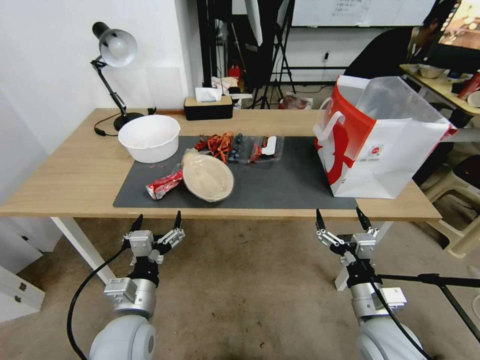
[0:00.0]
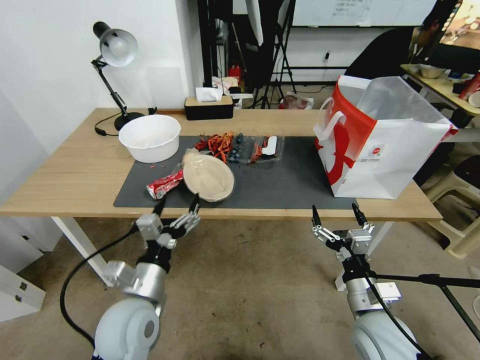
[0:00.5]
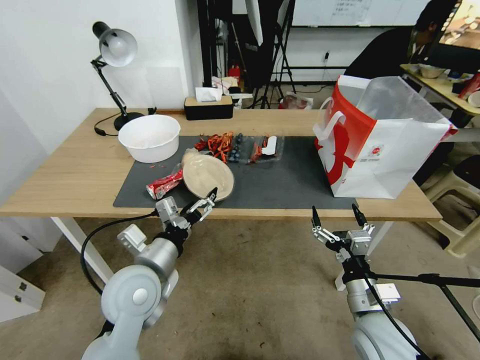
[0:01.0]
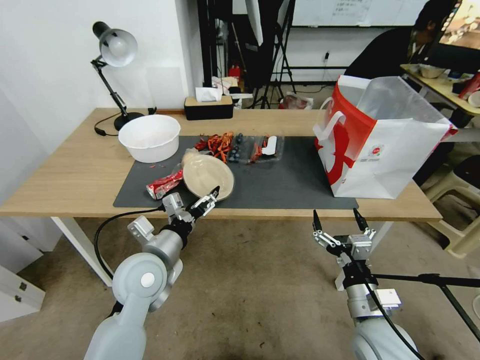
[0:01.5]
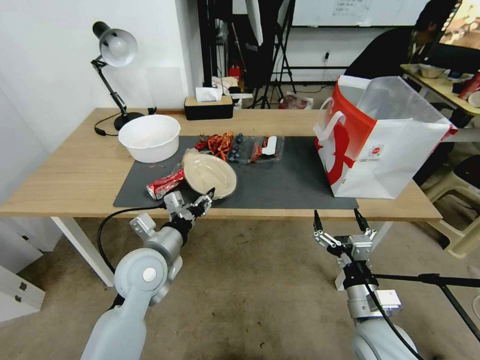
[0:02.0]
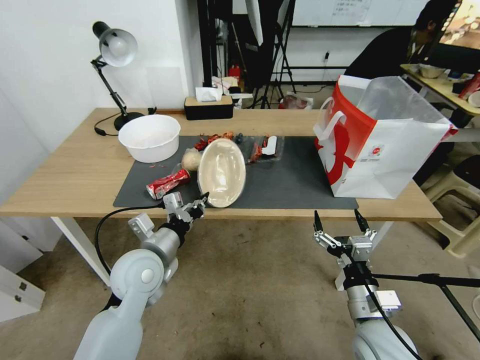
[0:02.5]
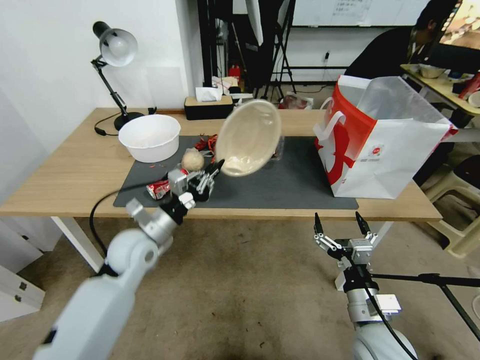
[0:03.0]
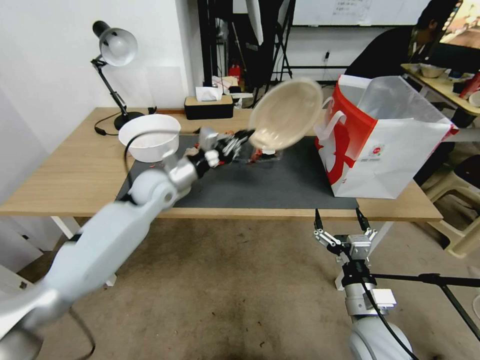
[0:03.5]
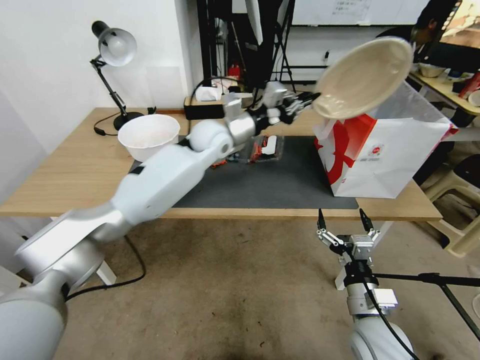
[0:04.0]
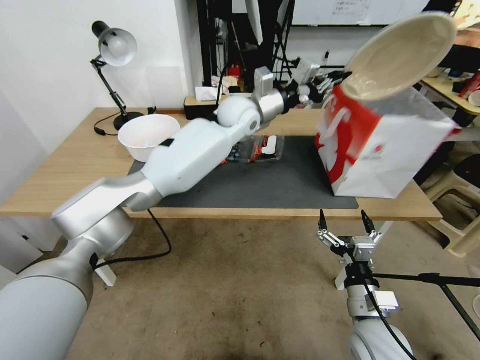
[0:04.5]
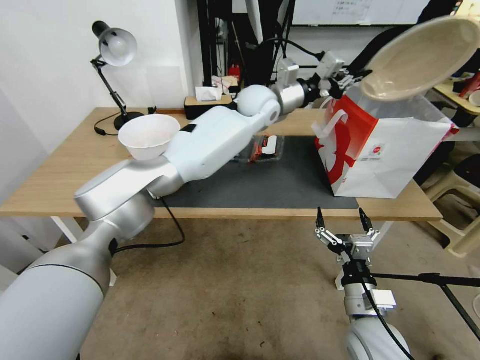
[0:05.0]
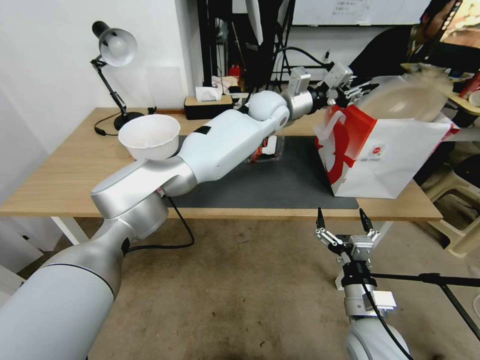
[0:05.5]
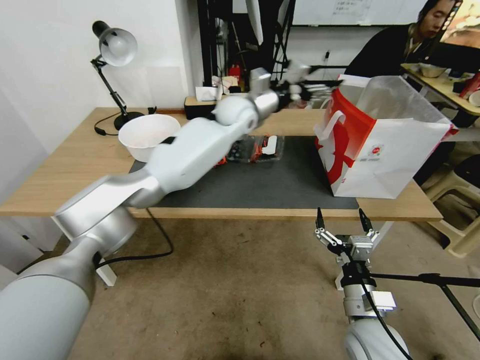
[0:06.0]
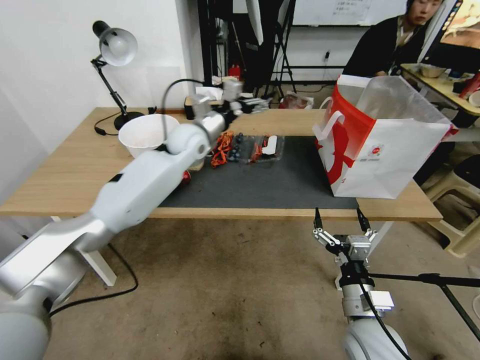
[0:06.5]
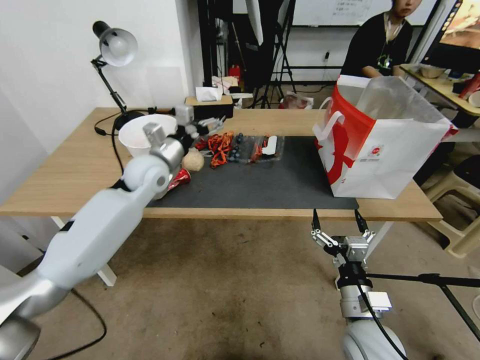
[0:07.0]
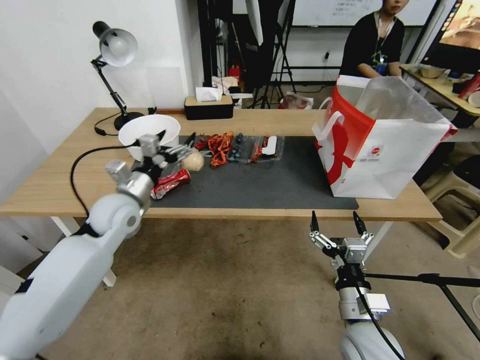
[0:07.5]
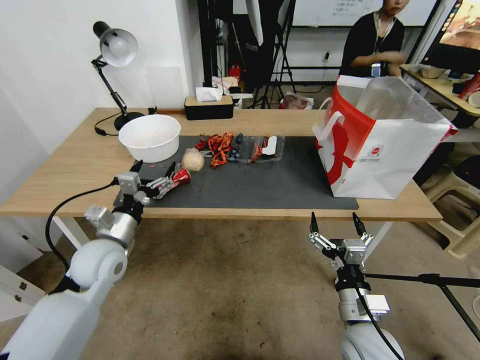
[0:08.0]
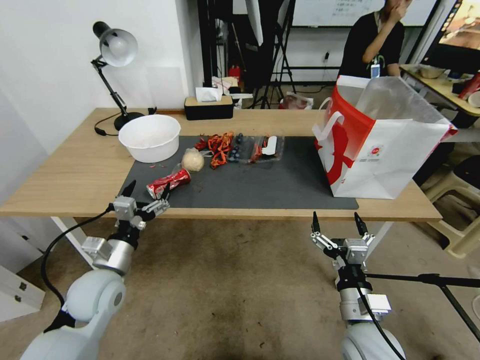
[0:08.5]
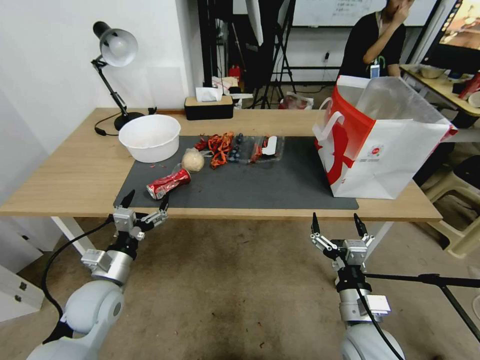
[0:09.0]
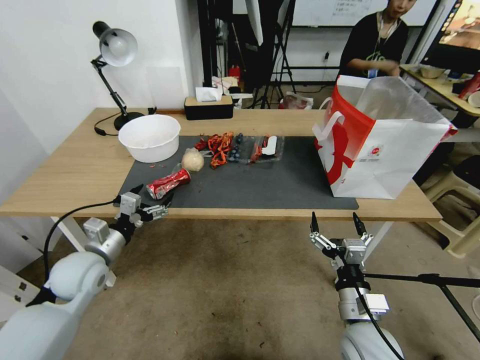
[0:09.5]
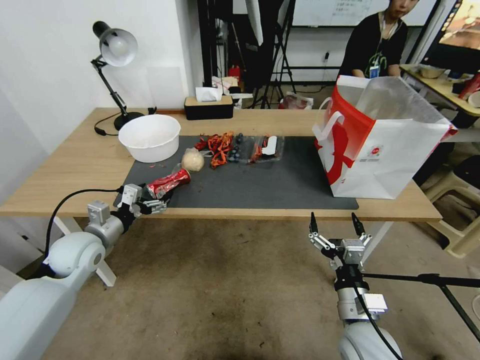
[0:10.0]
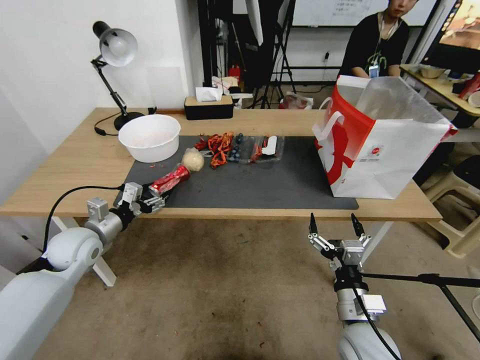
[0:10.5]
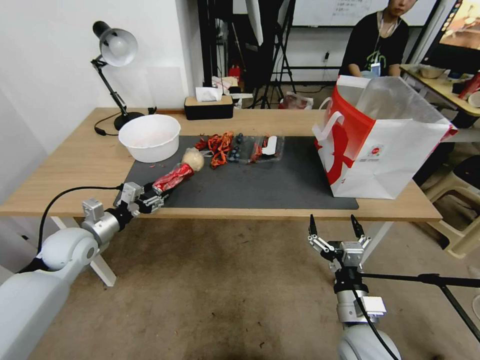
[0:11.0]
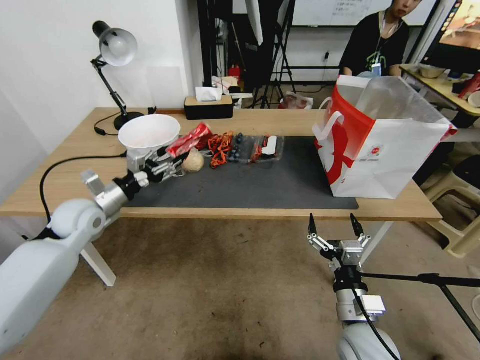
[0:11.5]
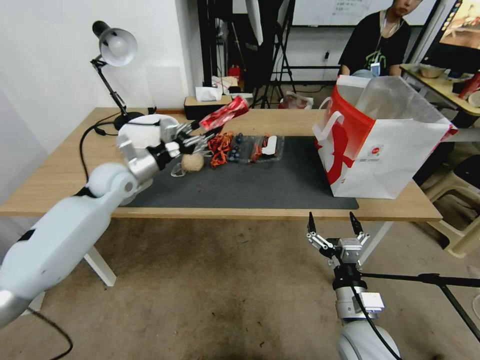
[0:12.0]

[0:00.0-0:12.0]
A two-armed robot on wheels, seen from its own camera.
0:00.0 to 0:02.0: The left gripper heads forward and upward, covering approximately 10 cm, and closes its fingers.
0:02.0 to 0:04.0: The left gripper goes approximately 30 cm forward, upward and to the right, and closes up.
0:04.0 to 0:06.0: The left gripper goes some 10 cm to the right and forward, and opens.
0:06.0 to 0:08.0: The left gripper moves to the left, backward and downward, roughly 40 cm.
0:08.0 to 0:10.0: The left gripper travels to the left by about 5 cm, and goes backward and returns, approximately 5 cm each way.
0:10.0 to 0:12.0: The left gripper heads forward, upward and to the right, covering about 15 cm, and closes.

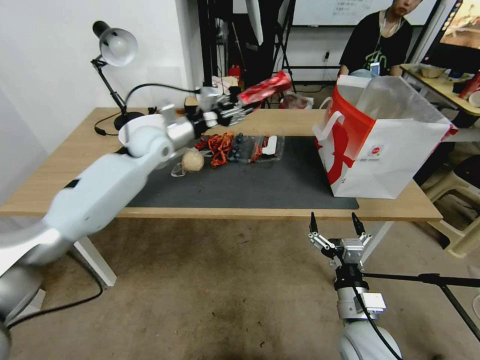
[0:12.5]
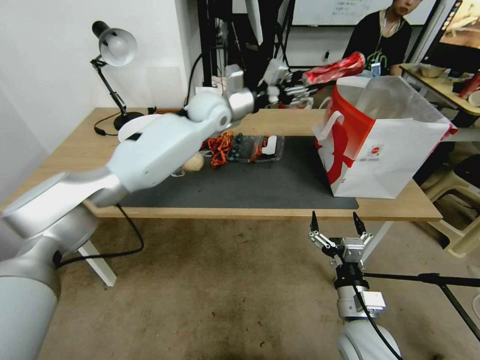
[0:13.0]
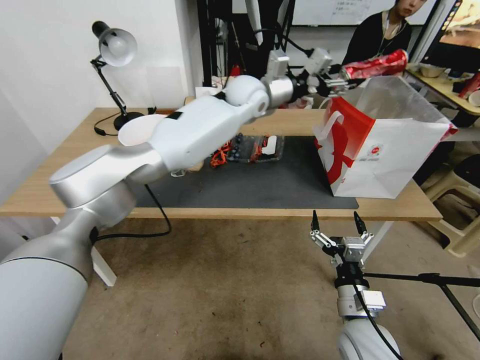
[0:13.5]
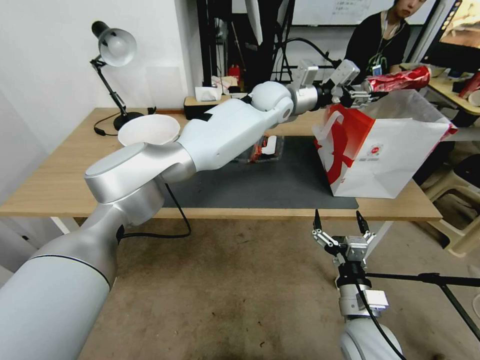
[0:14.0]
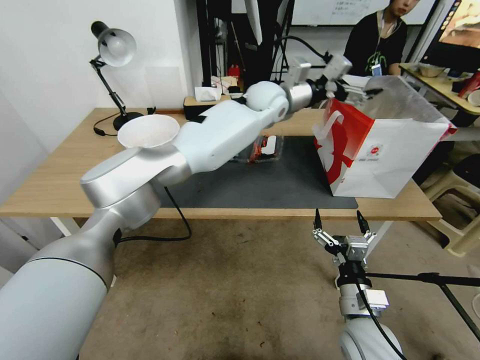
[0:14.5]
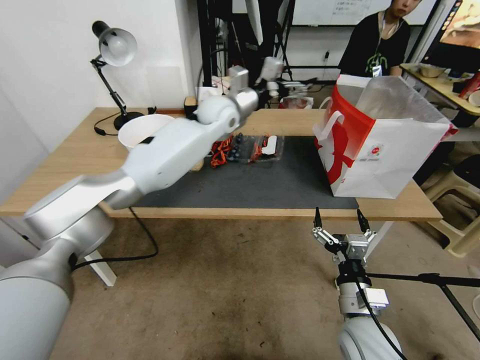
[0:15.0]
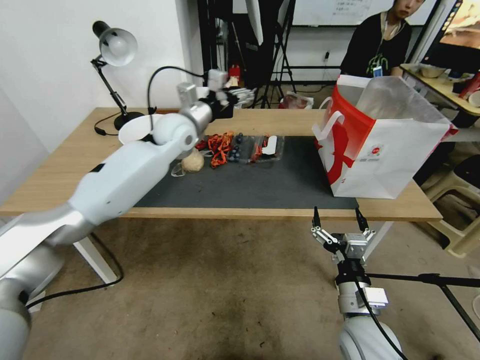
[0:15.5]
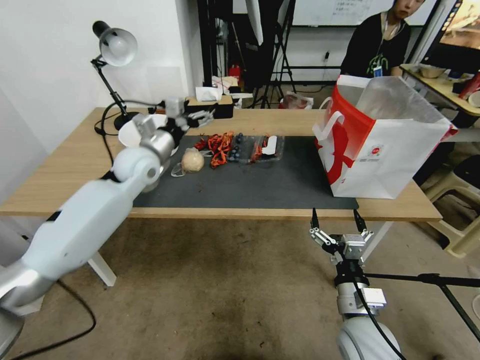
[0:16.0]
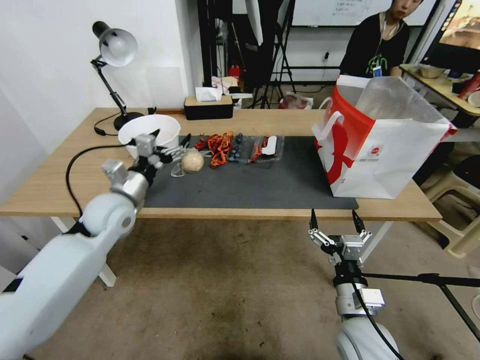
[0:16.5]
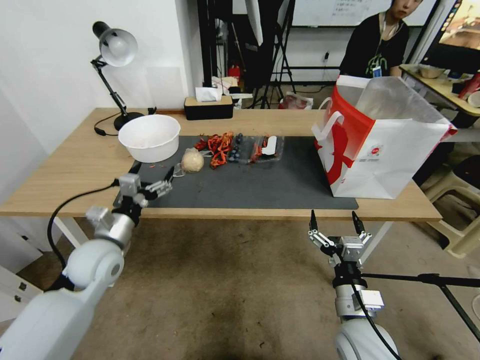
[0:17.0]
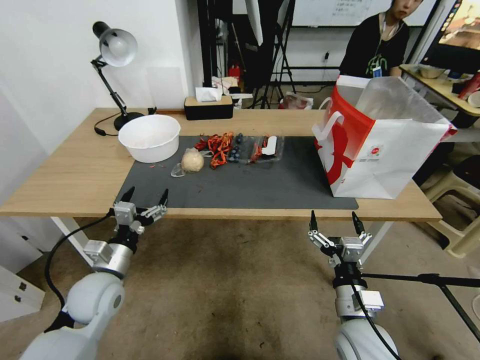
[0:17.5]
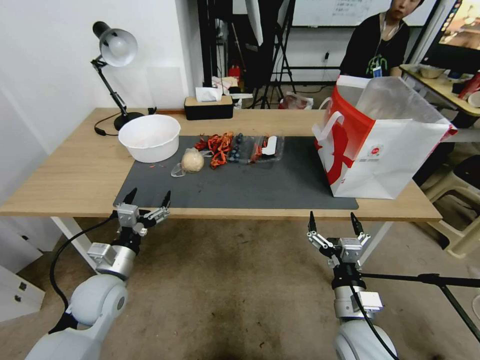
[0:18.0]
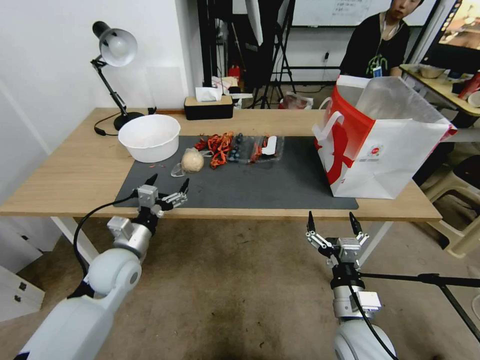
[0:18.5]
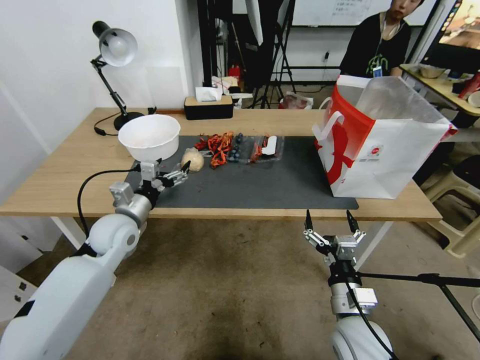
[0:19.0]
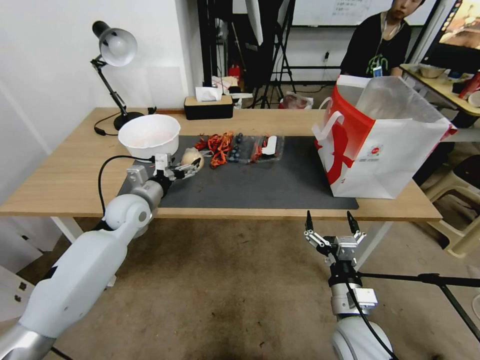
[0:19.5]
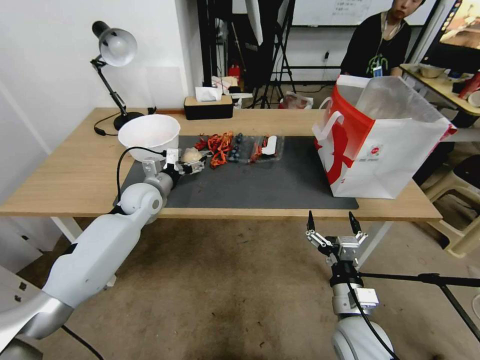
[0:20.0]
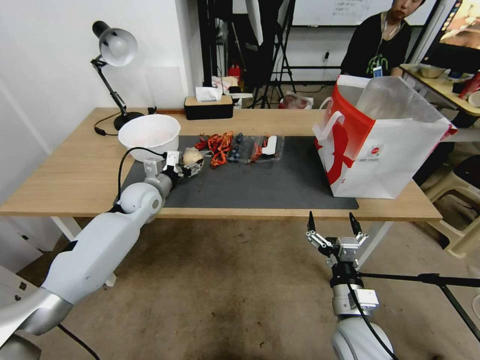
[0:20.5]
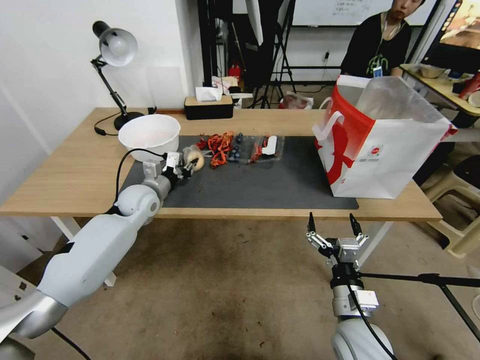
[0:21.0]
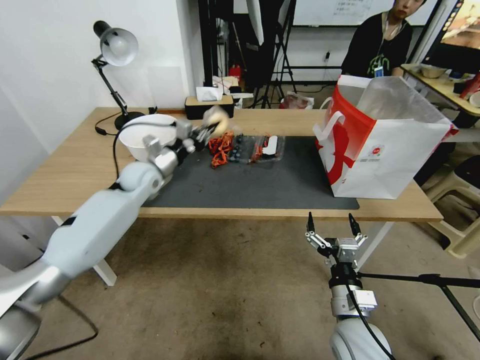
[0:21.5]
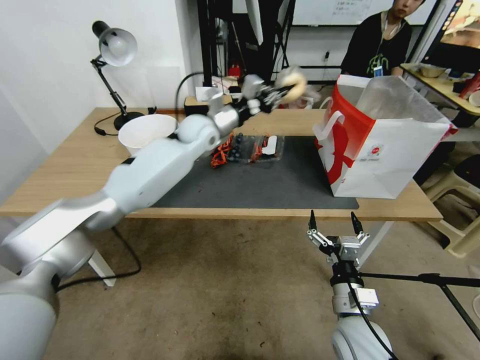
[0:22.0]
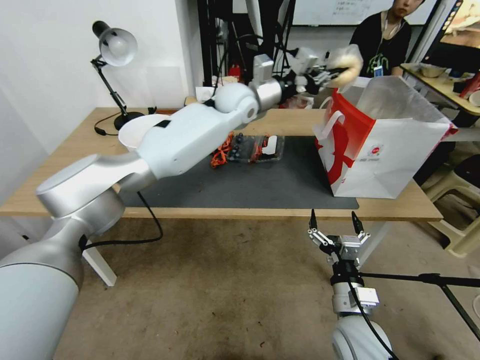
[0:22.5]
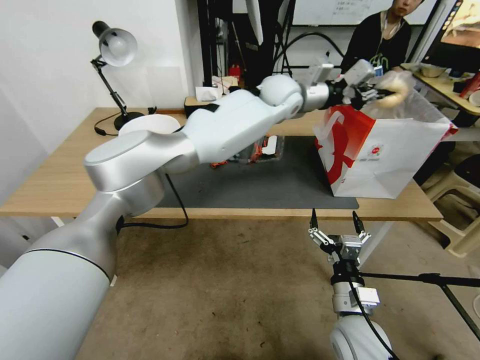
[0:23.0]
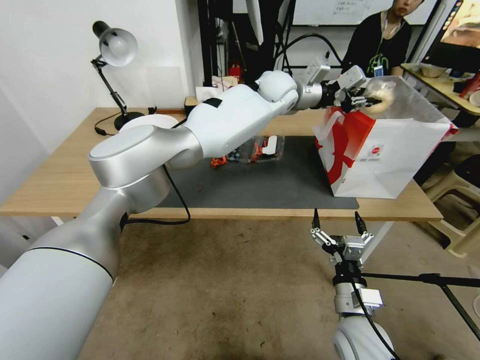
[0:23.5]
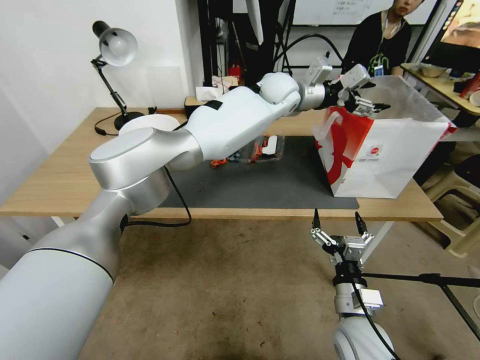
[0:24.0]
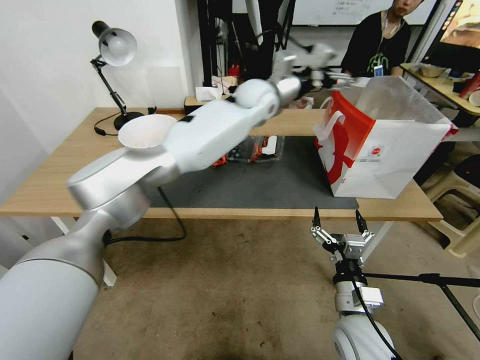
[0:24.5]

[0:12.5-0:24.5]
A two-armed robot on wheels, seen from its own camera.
0:12.5 to 0:14.5: The left gripper heads to the right, covering roughly 25 cm, and opens up.
0:14.5 to 0:16.5: The left gripper shifts about 40 cm to the left, backward and downward.
0:16.5 to 0:18.5: The left gripper heads backward and downward, covering approximately 15 cm.
0:18.5 to 0:20.5: The left gripper moves forward, some 15 cm.
0:20.5 to 0:22.5: The left gripper moves to the right, upward and forward, roughly 35 cm, and closes up.
0:22.5 to 0:24.5: The left gripper shifts approximately 5 cm to the right, and opens.

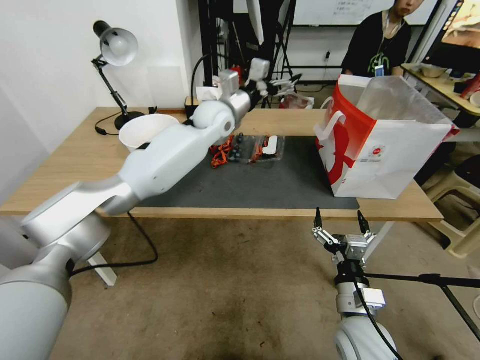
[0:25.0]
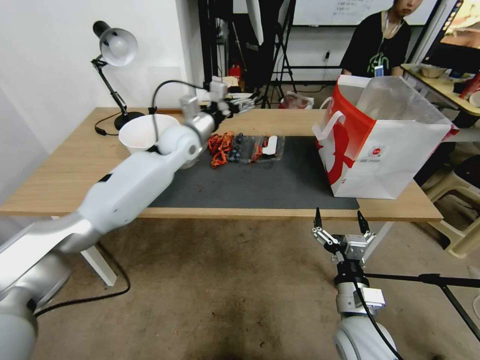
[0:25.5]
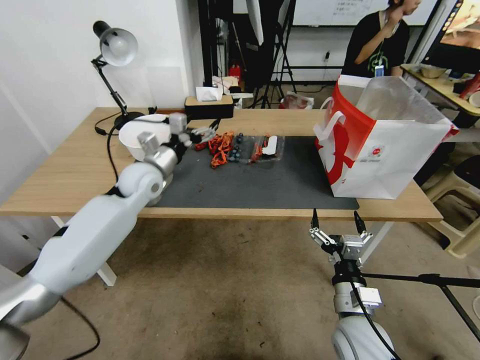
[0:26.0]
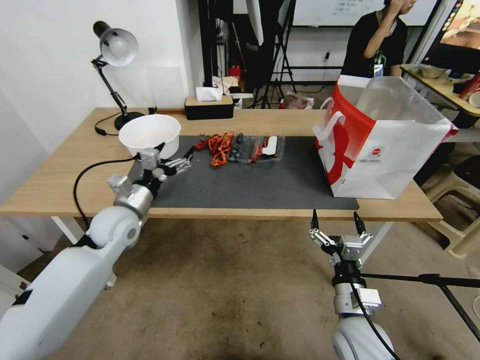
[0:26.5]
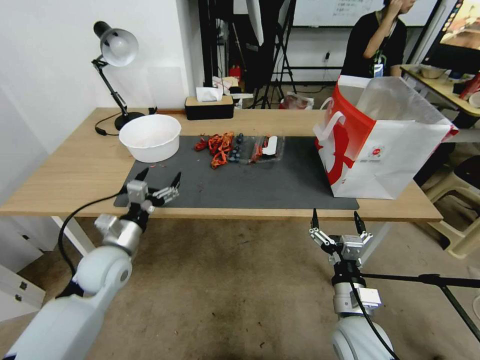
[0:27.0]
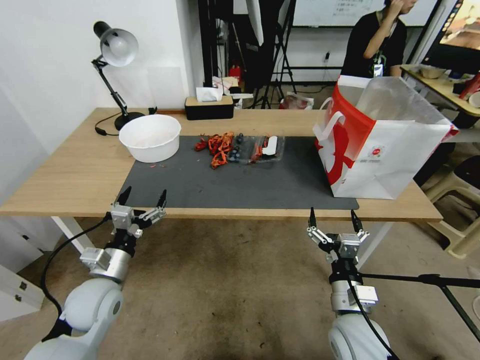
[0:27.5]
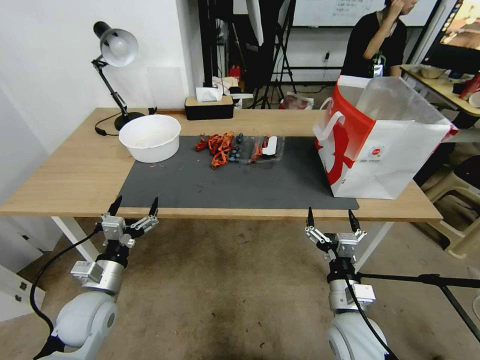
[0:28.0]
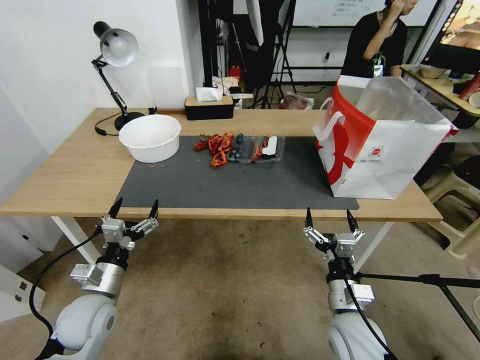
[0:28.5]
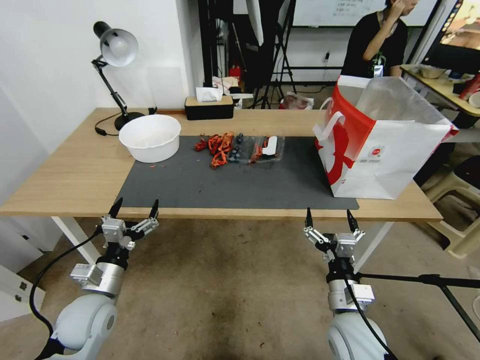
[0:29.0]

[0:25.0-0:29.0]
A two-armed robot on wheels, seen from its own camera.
0:25.0 to 0:27.0: The left gripper moves backward, to the left and downward, some 40 cm.
0:27.0 to 0:29.0: The left gripper shifts some 10 cm backward.
